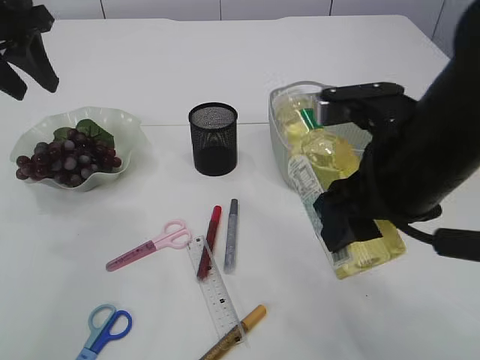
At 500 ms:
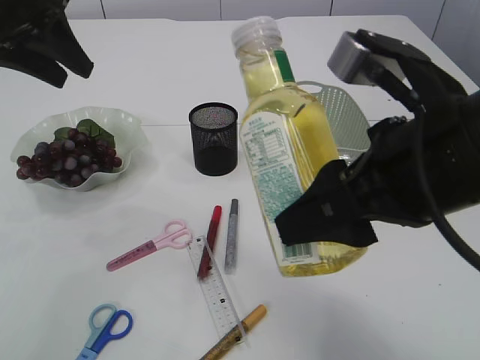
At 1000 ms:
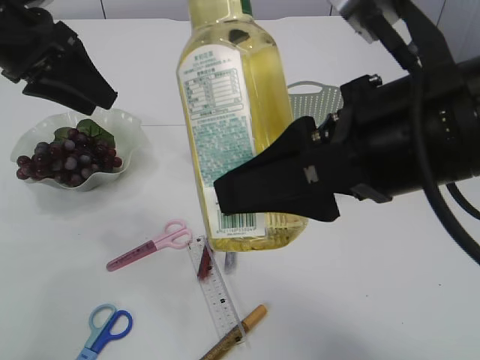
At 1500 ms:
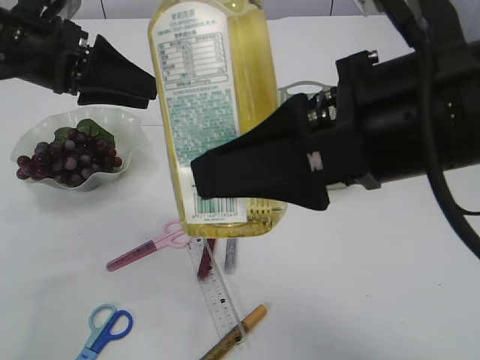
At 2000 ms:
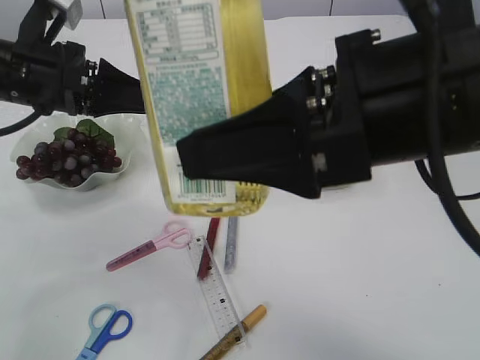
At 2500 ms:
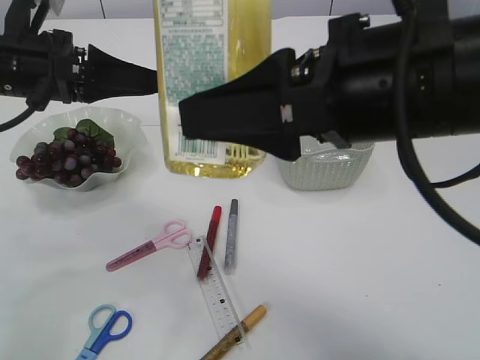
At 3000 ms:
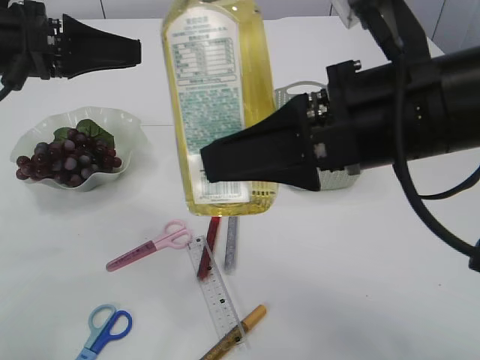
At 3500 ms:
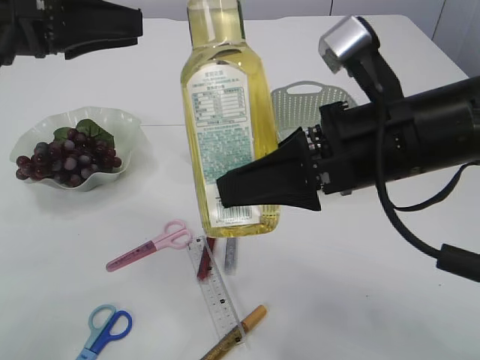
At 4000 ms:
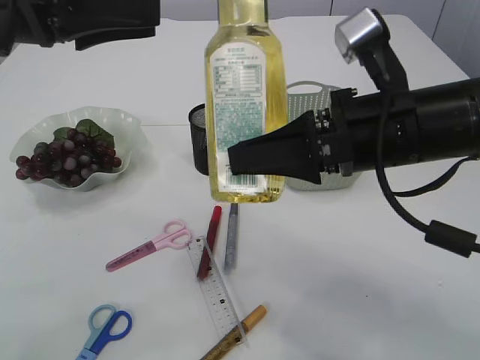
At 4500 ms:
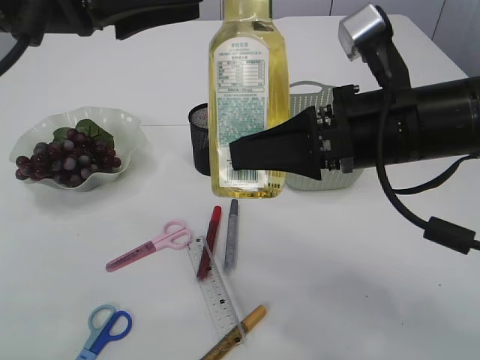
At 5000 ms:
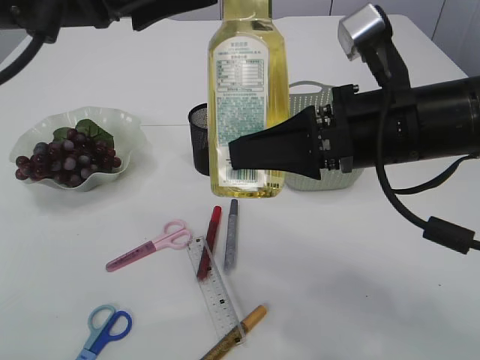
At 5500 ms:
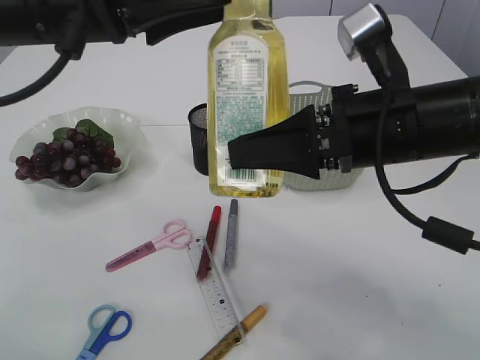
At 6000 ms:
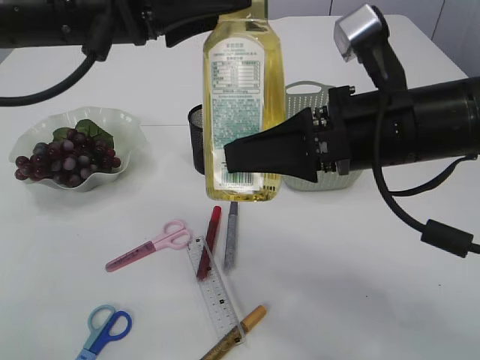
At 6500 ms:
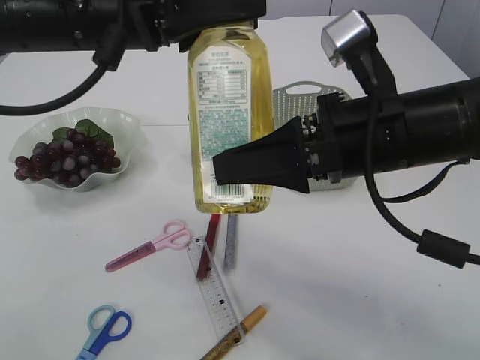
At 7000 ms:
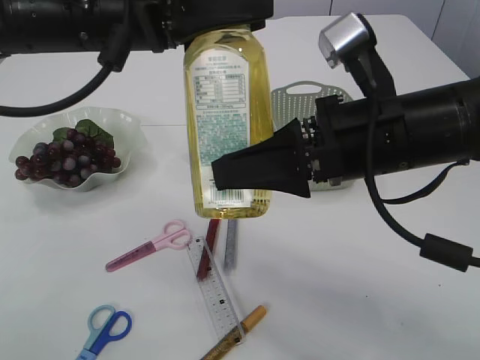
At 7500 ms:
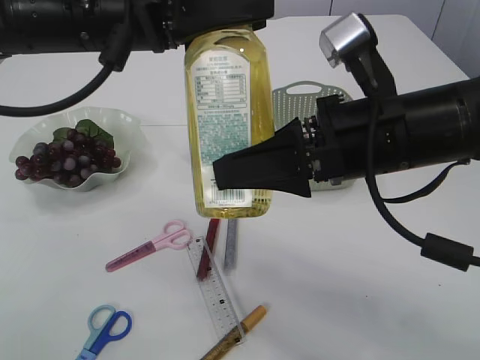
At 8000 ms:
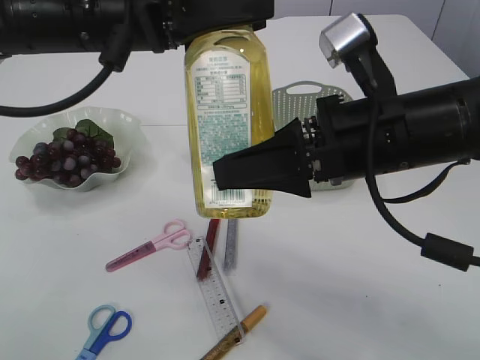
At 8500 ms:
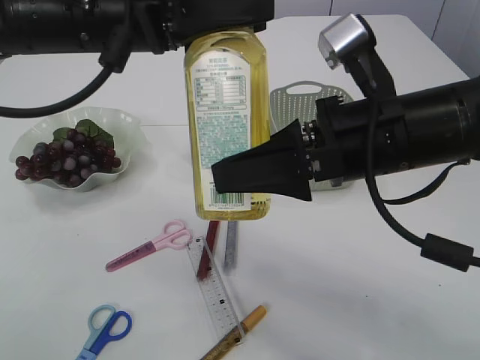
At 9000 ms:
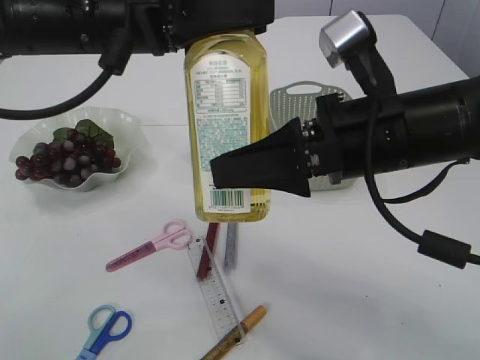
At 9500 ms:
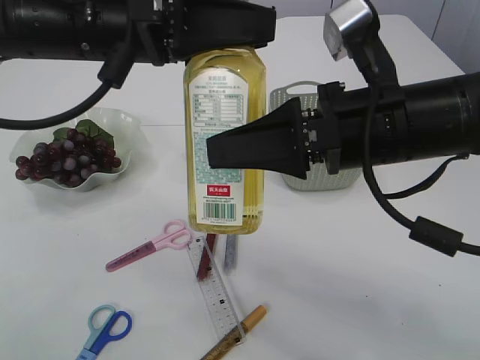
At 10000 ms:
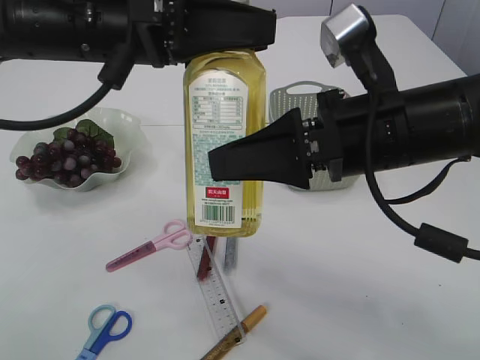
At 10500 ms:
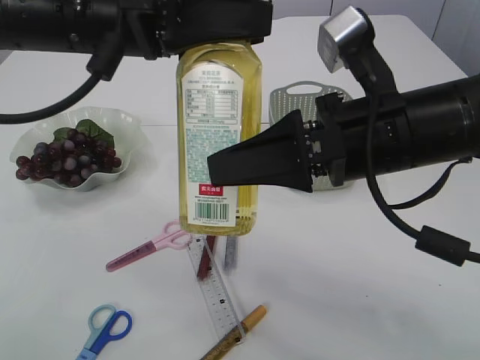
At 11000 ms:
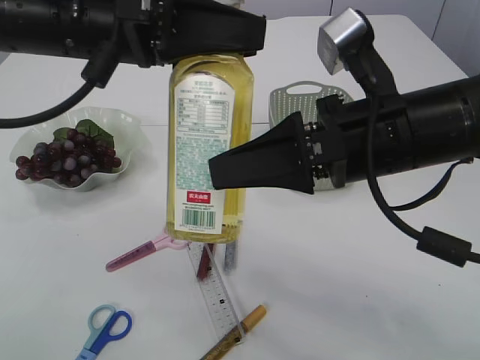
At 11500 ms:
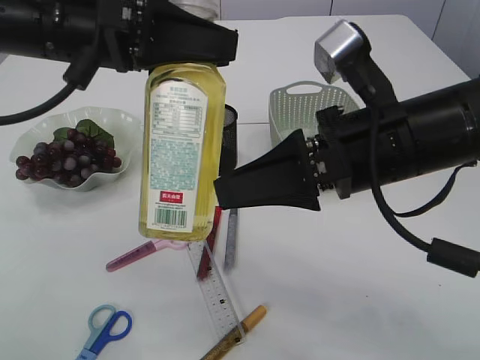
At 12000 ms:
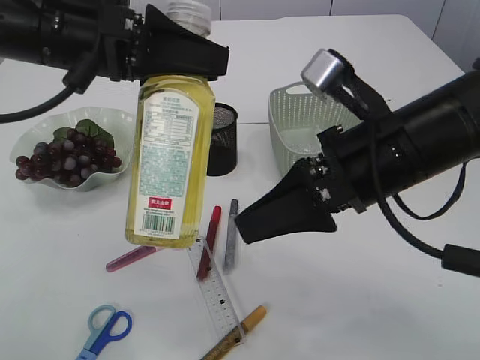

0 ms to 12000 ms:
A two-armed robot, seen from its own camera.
Step, 0 ms to 11500 ms: transfer the bottle to the left arm.
0 ms to 2000 ms: The right gripper moves upward and backward, about 10 cm. The left gripper travels downward and to the right by about 10 cm.
2000 ms to 4000 ms: The left gripper is displaced upward by approximately 10 cm. The right gripper heads forward and downward, covering approximately 10 cm.
4000 ms to 6000 ms: The left gripper moves to the right, approximately 5 cm.
6000 ms to 10000 ms: The grippers move only a little.

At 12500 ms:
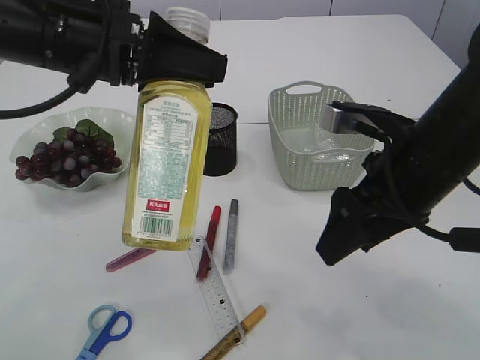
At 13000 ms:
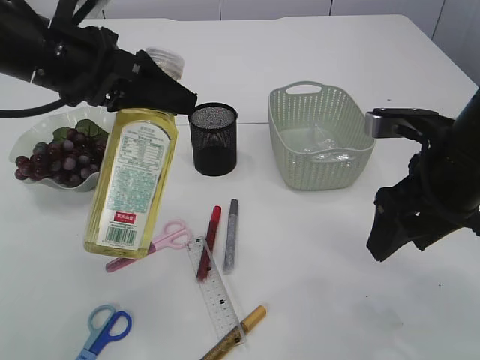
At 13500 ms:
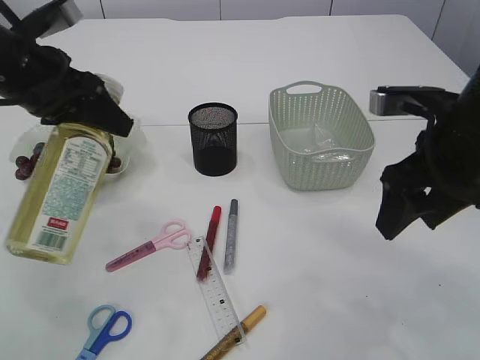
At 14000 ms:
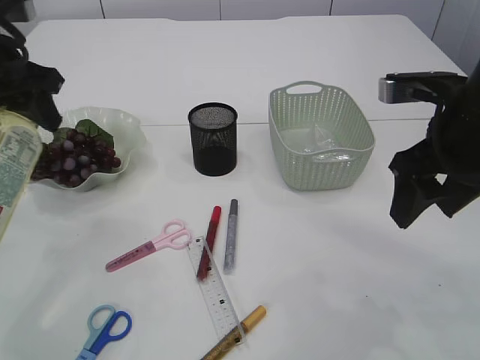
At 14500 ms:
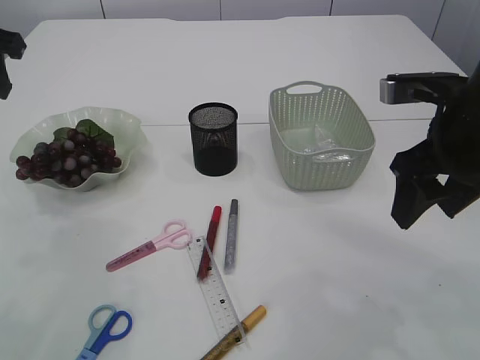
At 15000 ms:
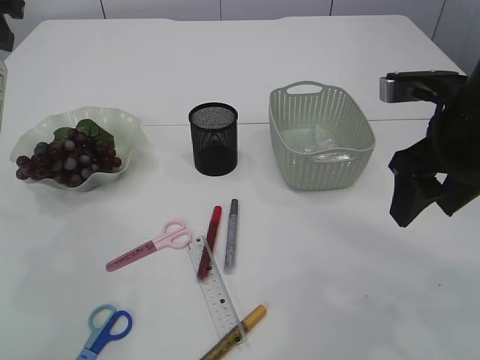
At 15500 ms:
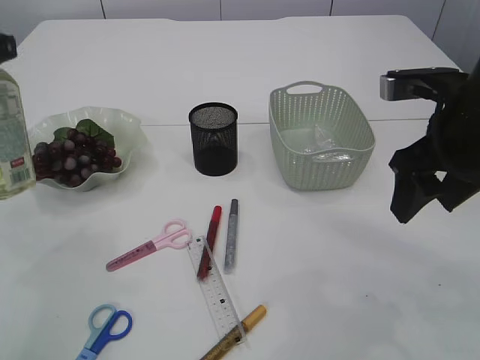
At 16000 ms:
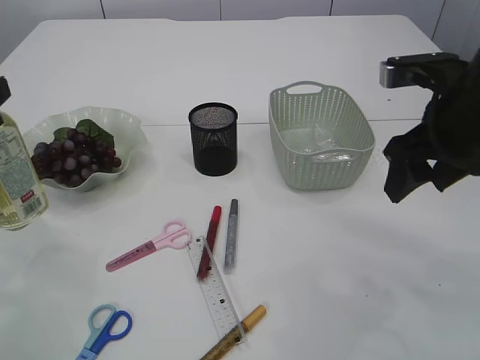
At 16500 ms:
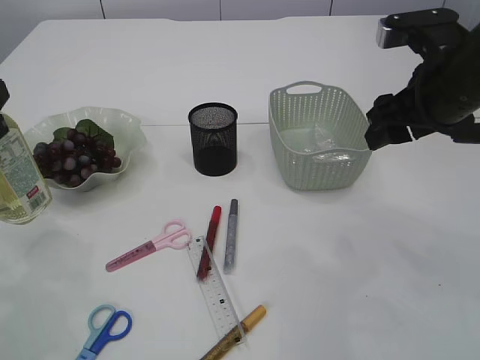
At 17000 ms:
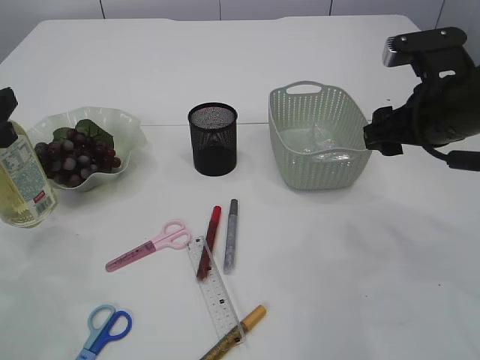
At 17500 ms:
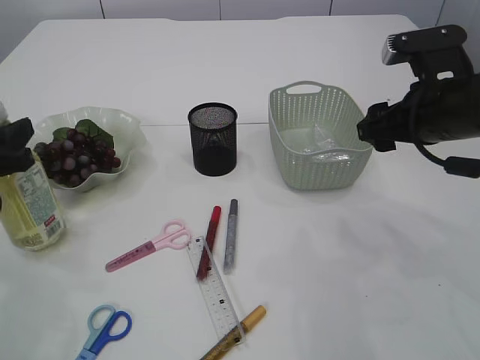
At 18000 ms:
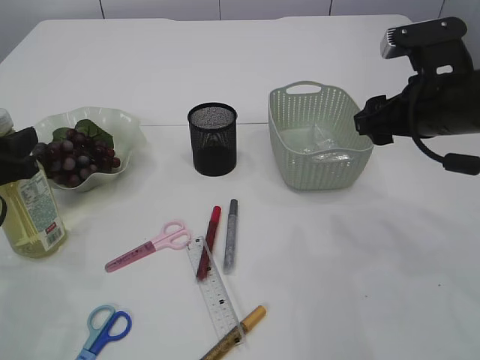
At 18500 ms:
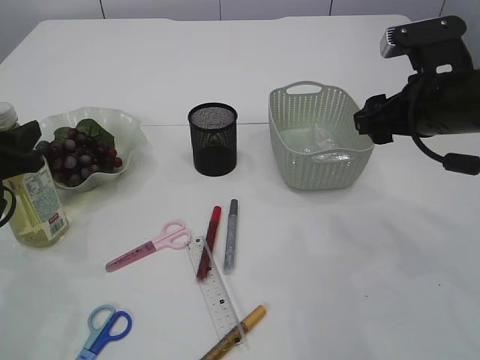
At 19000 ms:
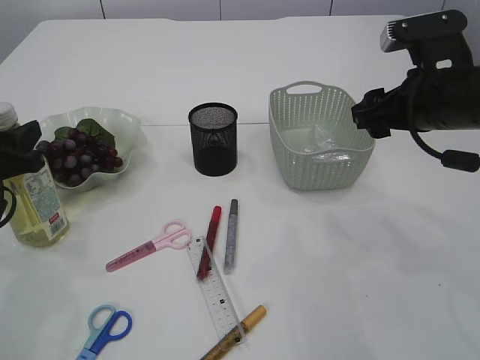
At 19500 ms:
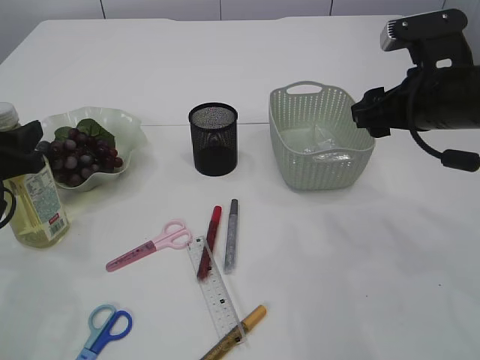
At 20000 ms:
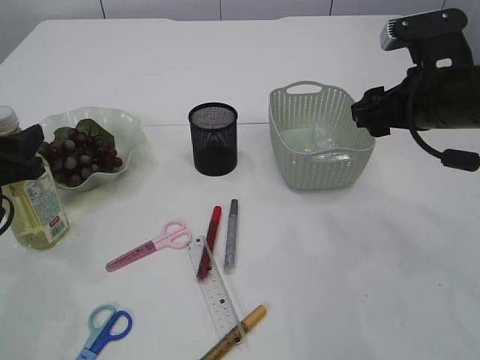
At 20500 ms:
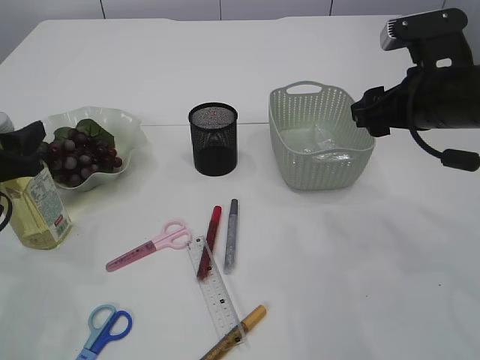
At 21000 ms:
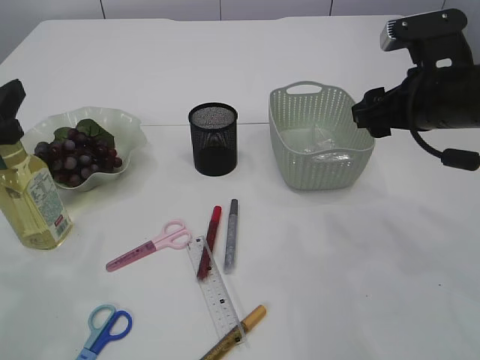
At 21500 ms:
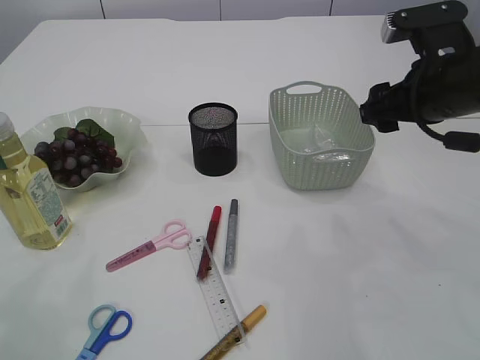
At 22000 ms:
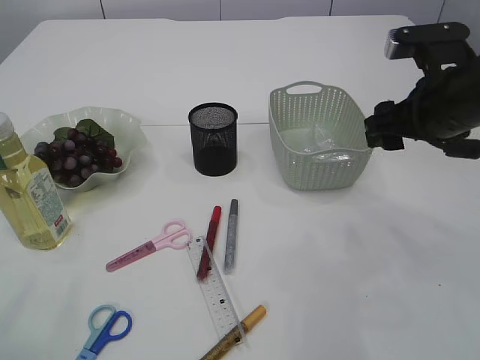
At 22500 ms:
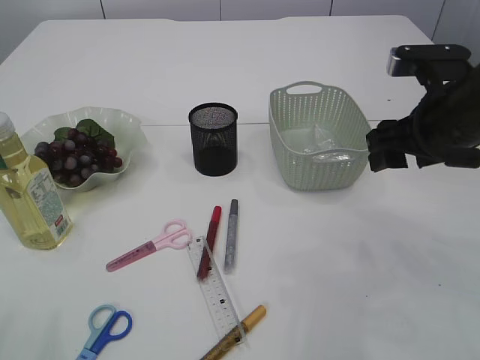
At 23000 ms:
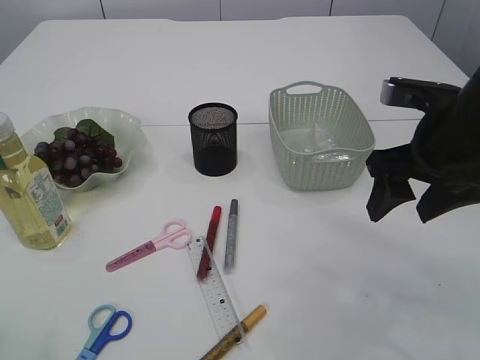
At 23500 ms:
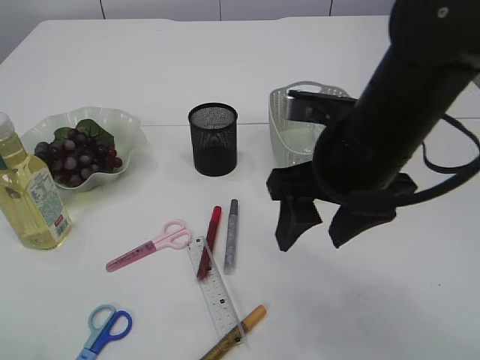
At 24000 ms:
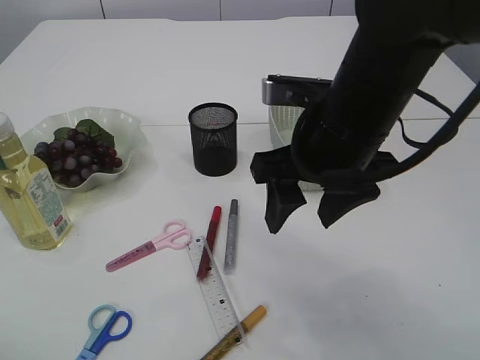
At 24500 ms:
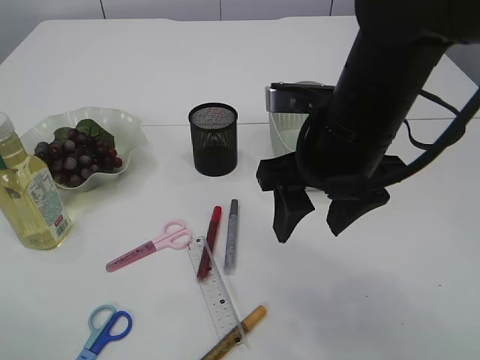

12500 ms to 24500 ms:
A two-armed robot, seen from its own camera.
Step, 12500 ms to 21000 ms: Place the bottle.
12500 ms to 14500 ms: The left gripper goes about 15 cm to the left. Meanwhile the right gripper heads to the right, covering approximately 5 cm.
14500 ms to 16500 ms: The left gripper shifts approximately 15 cm downward and backward.
16500 ms to 18500 ms: The left gripper goes roughly 5 cm downward.
18500 ms to 20500 ms: Neither gripper changes place.
20500 ms to 22500 ms: The left gripper goes approximately 20 cm upward and backward.
22500 ms to 24500 ms: The right gripper goes some 10 cm to the left.

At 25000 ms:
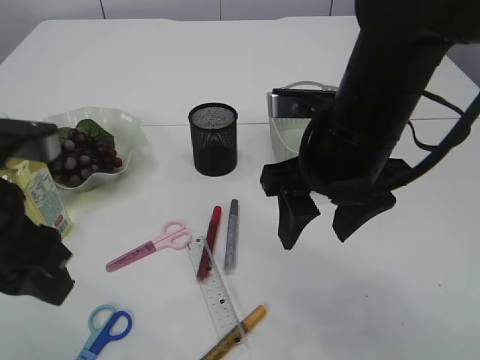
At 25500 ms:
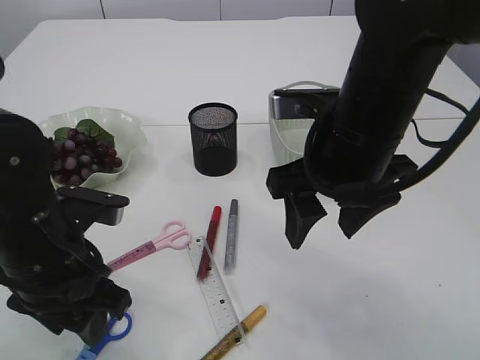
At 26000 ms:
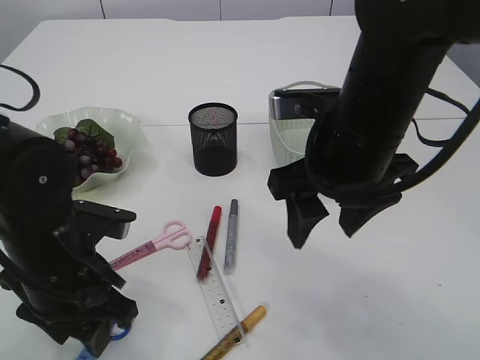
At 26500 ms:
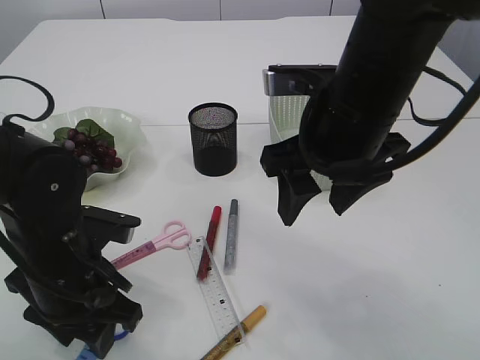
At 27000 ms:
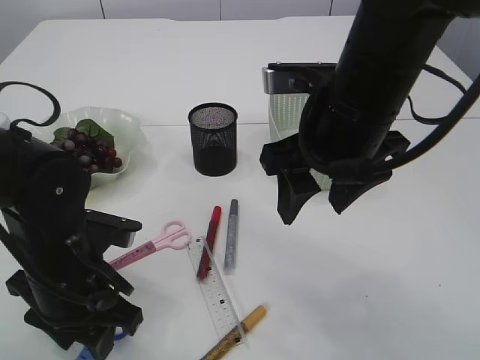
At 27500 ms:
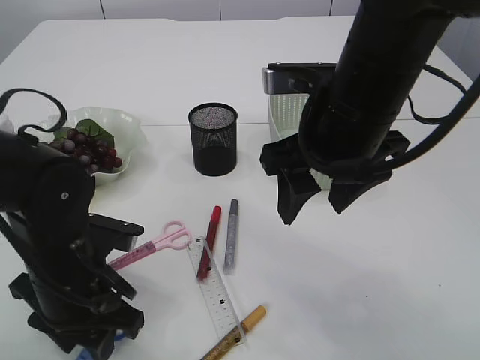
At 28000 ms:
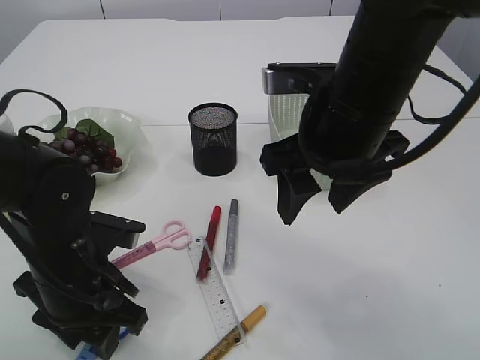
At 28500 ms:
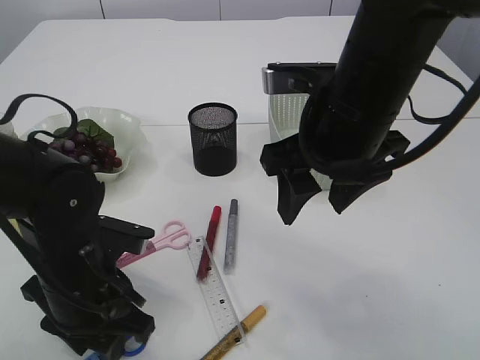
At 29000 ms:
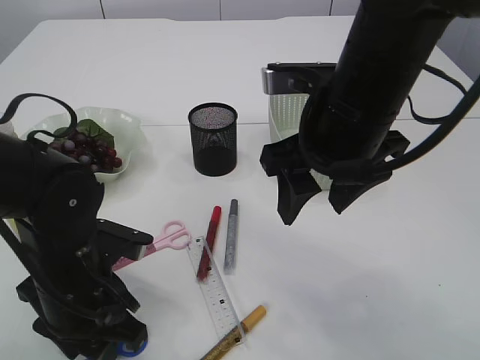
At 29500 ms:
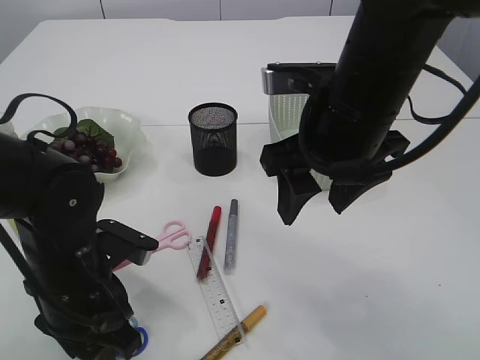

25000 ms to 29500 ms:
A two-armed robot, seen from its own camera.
25000 ms to 27000 ms: The left gripper shifts roughly 15 cm downward.
27000 ms to 29500 ms: The grippers make only small movements.
